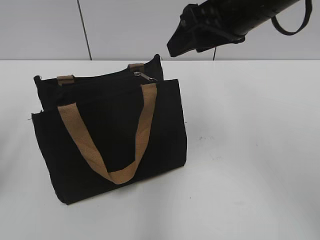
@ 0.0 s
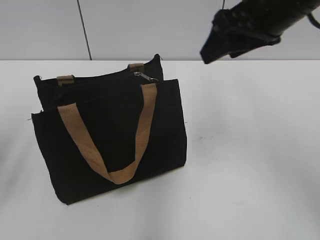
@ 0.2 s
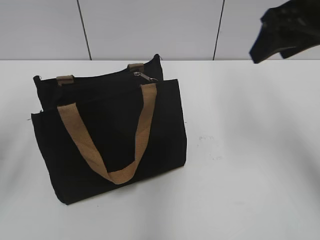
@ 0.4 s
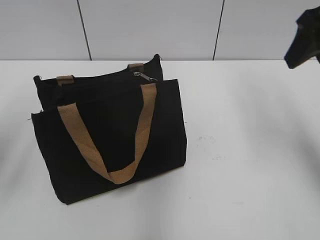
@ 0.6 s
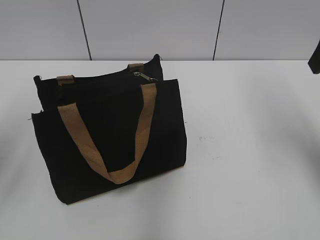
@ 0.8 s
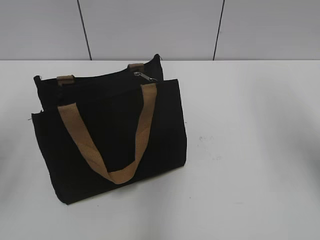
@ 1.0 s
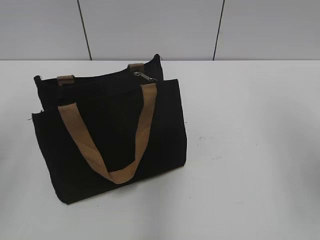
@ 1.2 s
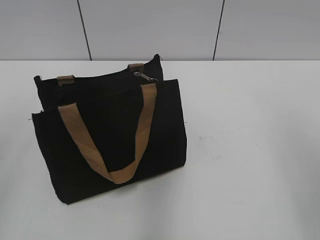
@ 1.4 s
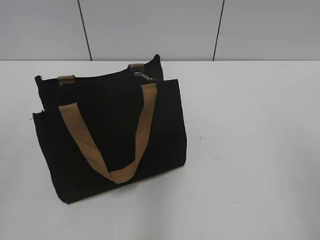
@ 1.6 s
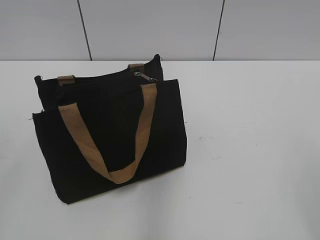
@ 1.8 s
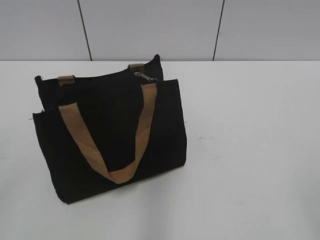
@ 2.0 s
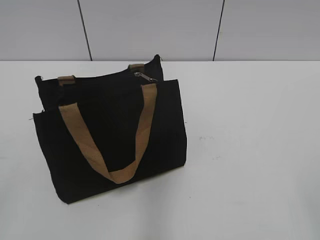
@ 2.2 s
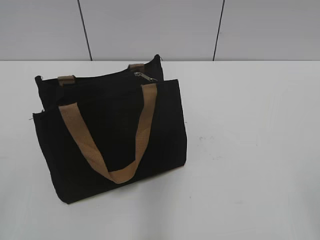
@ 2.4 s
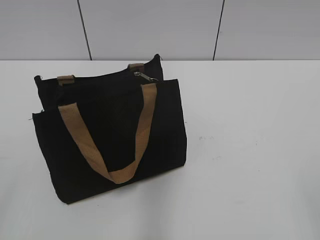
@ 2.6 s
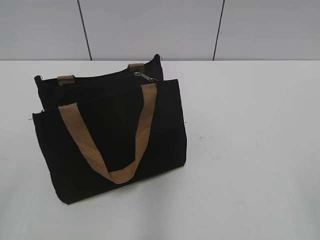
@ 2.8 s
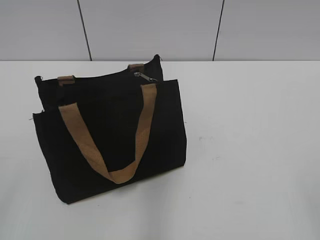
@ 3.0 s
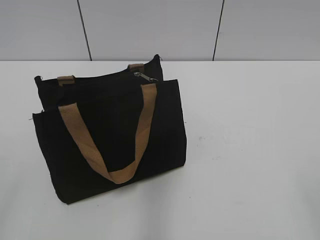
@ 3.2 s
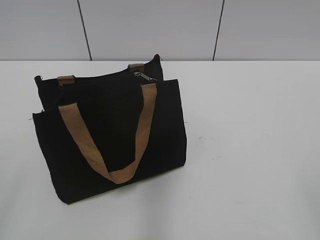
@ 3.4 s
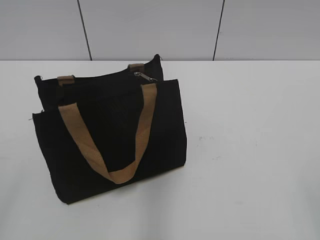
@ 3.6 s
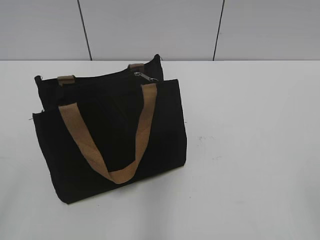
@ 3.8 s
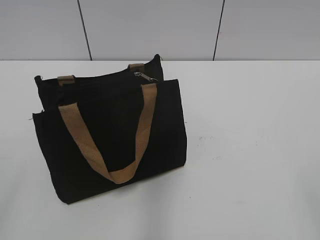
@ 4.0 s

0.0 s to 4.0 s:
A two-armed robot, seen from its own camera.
0.0 to 1.4 s: The right gripper heads to the right and backward, covering approximately 20 cm. The left gripper heads upward, covering approximately 5 cm.
